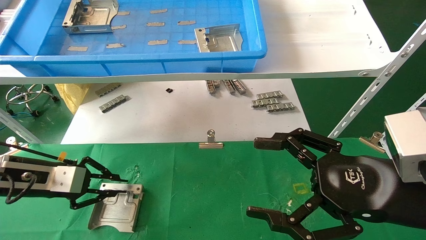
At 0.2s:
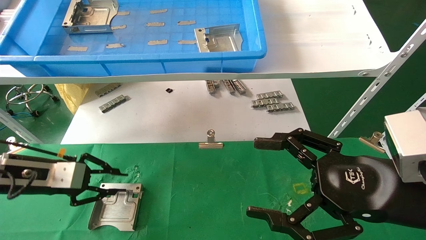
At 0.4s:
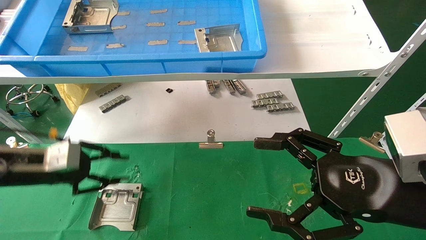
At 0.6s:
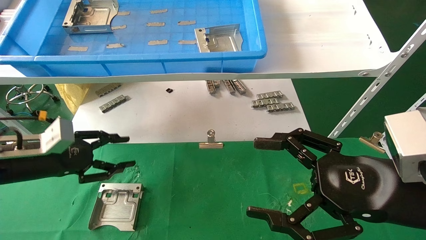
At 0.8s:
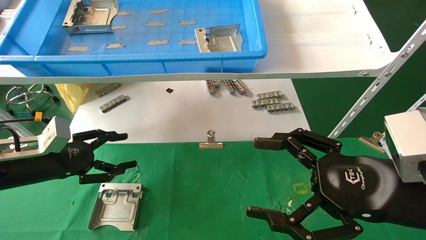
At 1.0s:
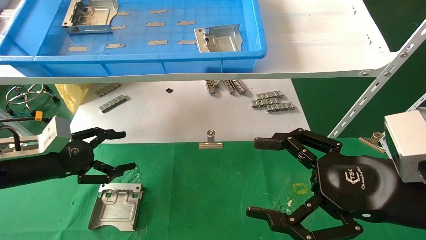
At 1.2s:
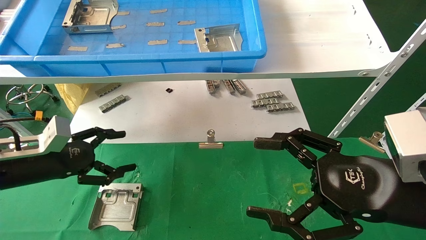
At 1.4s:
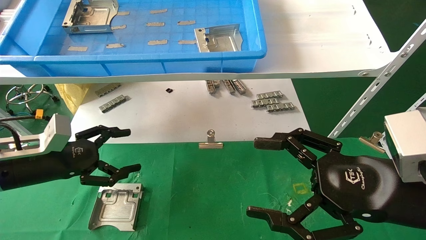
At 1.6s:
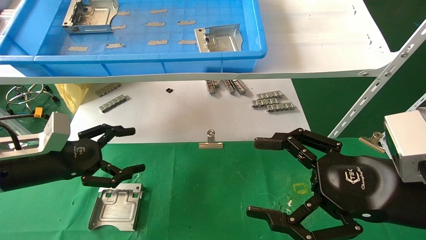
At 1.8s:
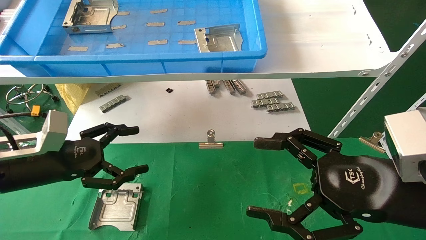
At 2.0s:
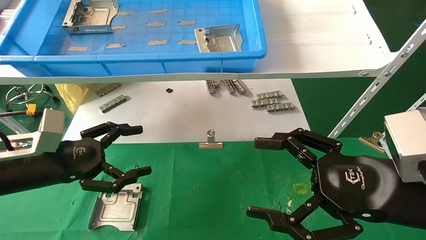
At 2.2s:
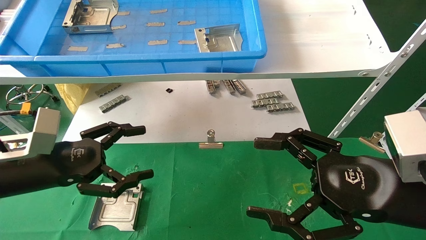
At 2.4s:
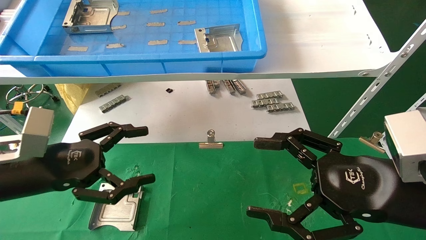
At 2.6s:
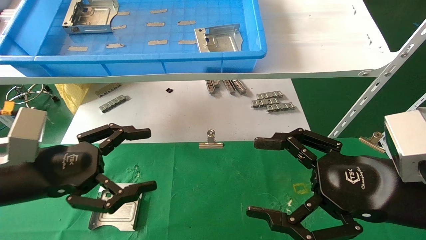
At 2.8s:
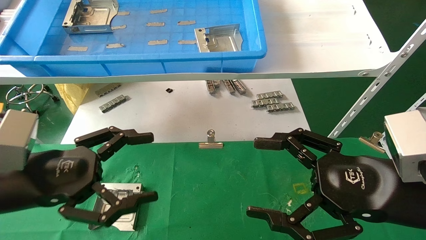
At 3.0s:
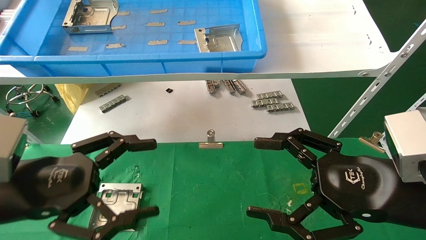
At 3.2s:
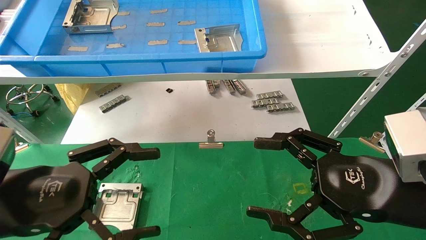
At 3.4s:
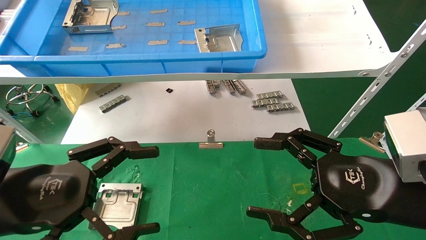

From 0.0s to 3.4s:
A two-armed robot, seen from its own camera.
Task of the whole recording: use the mechanical arm to pick up the parts and place them on the table.
From 0.0s to 1.6s: The left gripper opens its fingers.
From 1.6s to 3.4s: The left gripper travels backward and to the right by roughly 15 cm.
